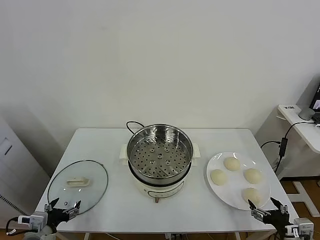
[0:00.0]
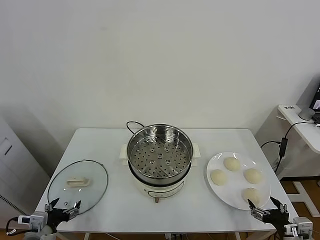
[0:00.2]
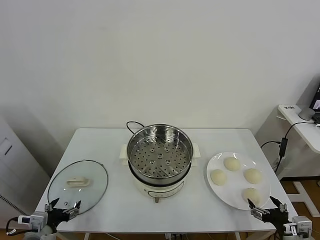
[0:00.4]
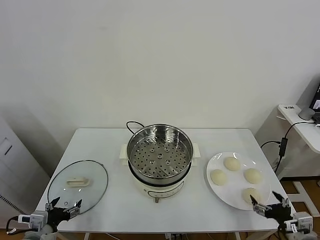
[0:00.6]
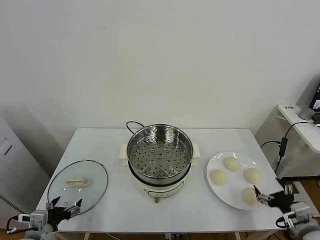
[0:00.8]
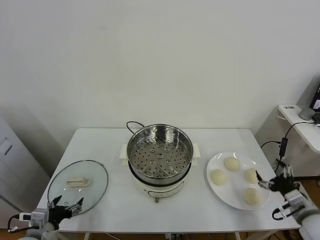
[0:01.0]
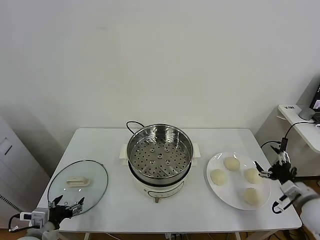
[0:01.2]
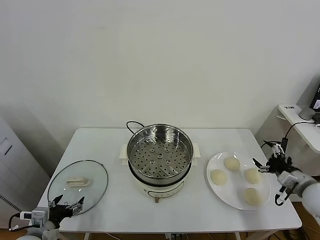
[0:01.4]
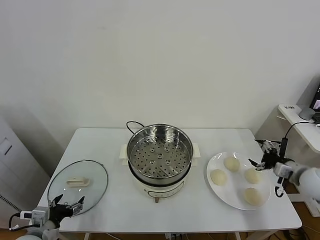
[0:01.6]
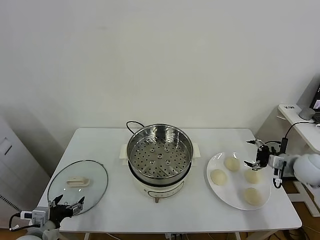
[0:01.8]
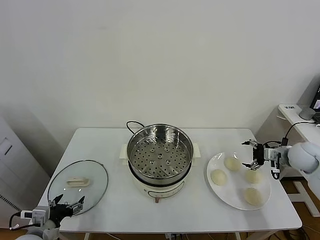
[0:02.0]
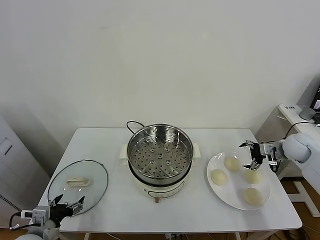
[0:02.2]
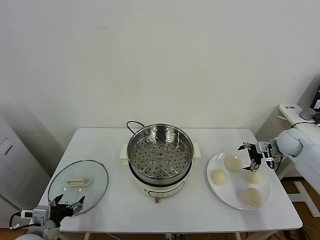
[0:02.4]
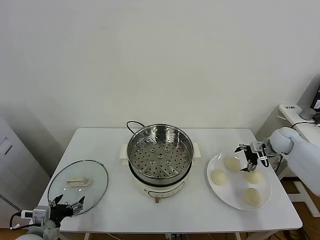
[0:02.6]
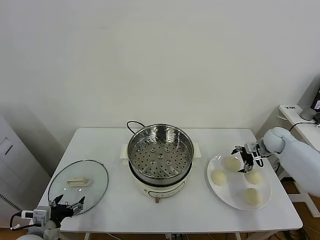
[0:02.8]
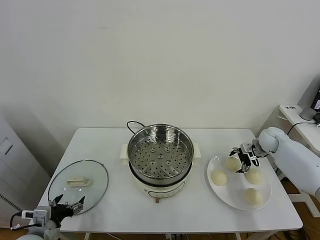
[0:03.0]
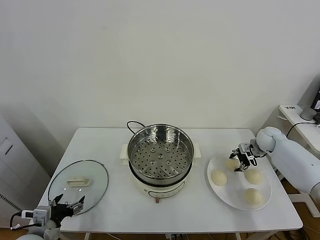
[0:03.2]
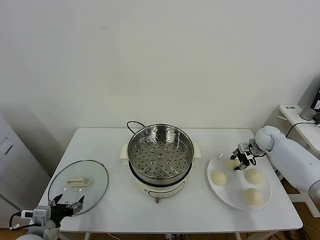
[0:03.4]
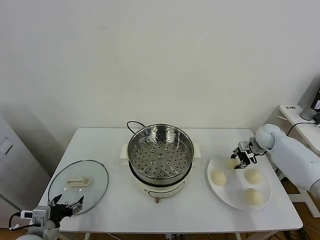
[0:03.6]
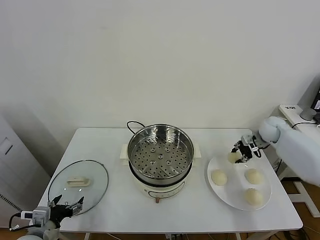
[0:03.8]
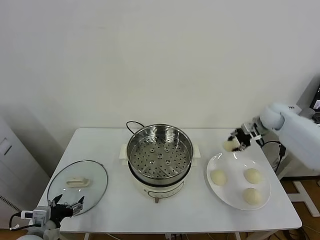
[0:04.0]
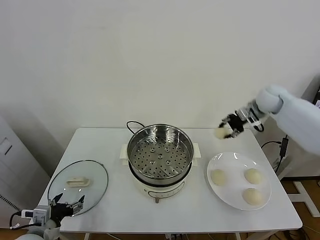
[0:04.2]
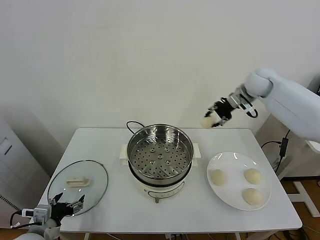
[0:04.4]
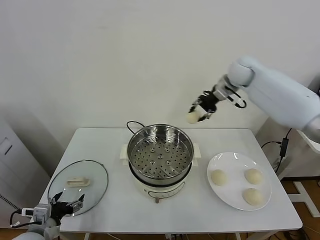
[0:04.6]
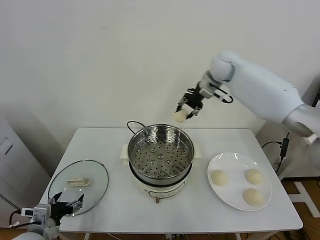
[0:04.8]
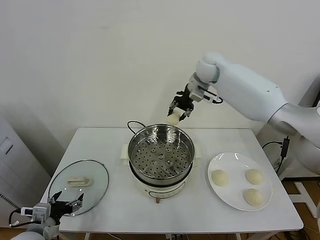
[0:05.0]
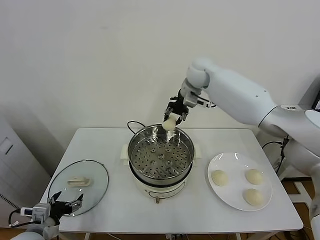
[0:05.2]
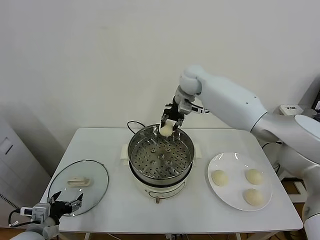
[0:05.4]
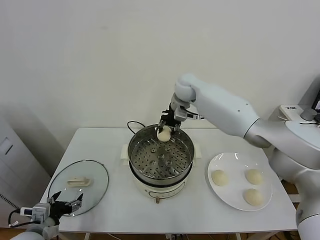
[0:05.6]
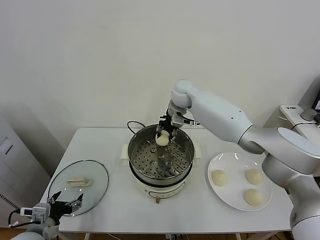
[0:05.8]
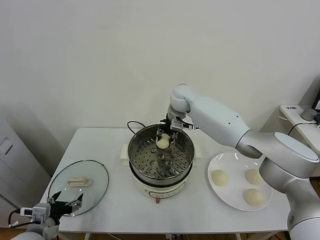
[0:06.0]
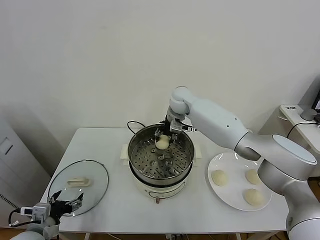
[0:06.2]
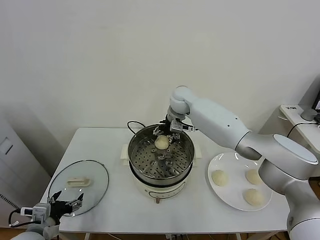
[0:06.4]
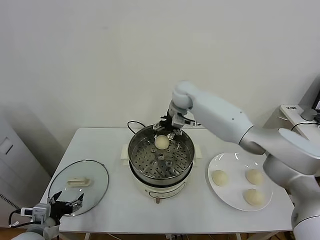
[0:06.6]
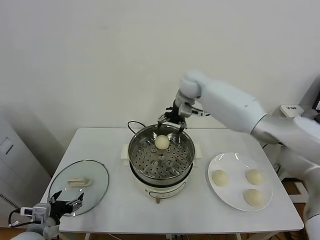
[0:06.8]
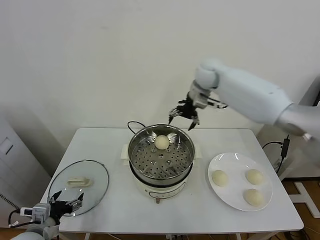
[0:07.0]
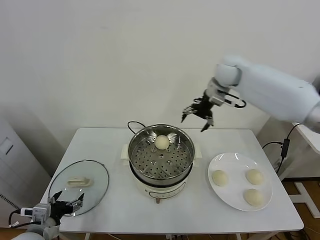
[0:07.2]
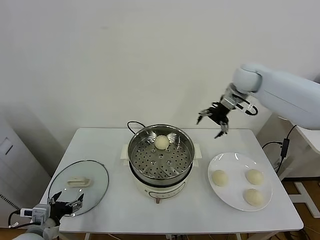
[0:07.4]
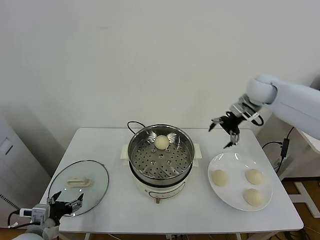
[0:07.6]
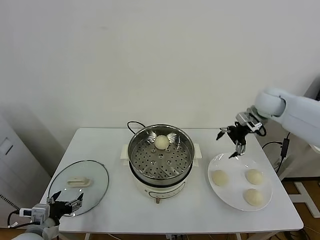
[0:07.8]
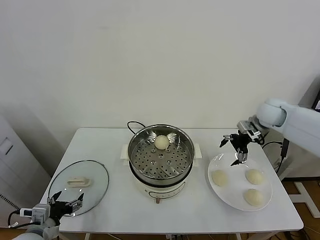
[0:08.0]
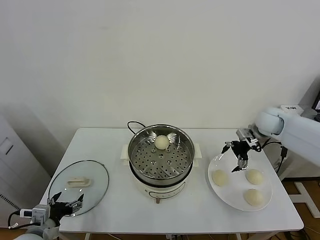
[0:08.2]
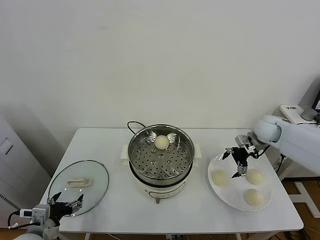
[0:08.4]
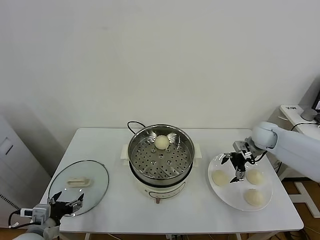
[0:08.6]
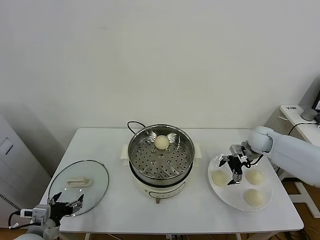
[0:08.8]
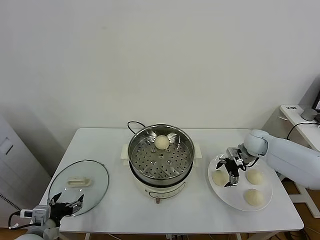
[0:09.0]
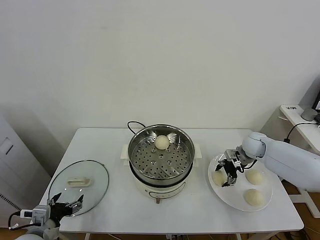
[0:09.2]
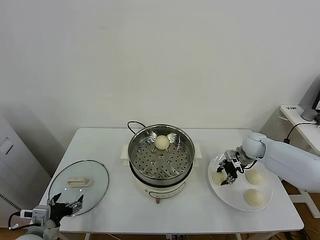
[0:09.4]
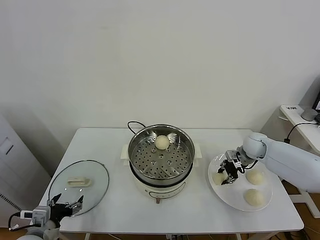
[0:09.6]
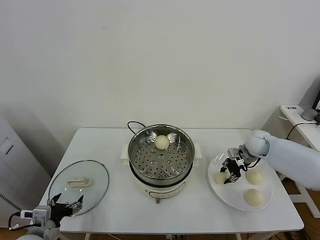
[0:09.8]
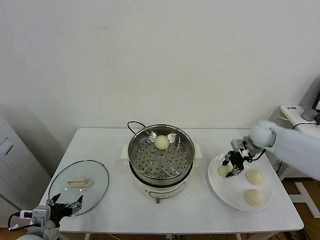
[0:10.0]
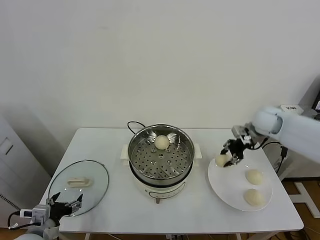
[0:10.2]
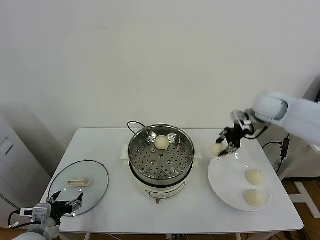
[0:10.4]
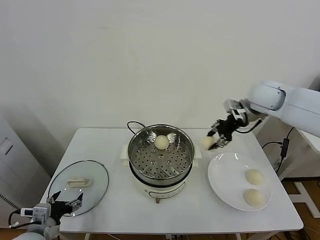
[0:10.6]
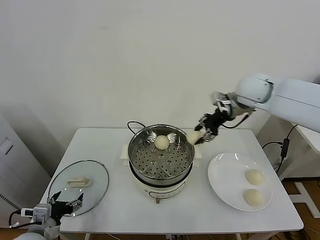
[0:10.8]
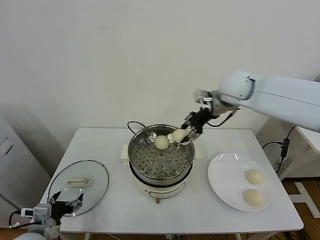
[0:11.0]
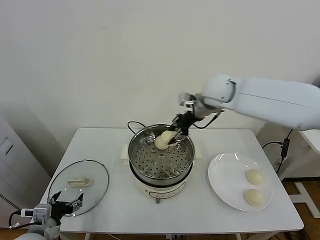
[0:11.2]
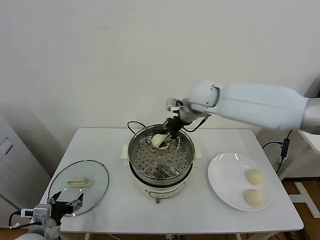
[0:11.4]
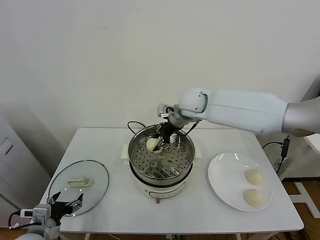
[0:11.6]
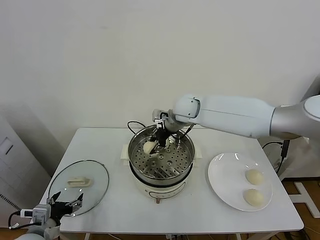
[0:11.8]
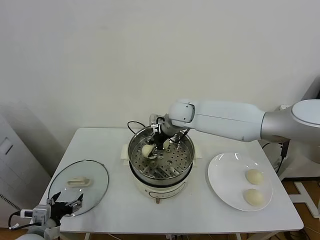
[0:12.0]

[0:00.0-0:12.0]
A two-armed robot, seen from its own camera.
Task of the whole recording: take steamed baozi put them in steamer.
Step, 0:00.0 to 0:03.2: Grasp the baozi in the plate with right gripper.
Step, 0:03.4 to 0:06.4: Place the baozi on the steamer with right gripper.
Step, 0:06.6 to 0:09.4: Grasp the baozi in the plate with right gripper.
0:01.6 to 0:03.0: The right gripper heads forward, covering about 20 cm.
0:03.0 to 0:04.4: The right gripper is displaced upward and to the left by about 25 cm, and closes.
0:04.4 to 0:06.0: The right gripper is displaced to the left by roughly 25 cm.
0:06.0 to 0:07.6: The right gripper shifts about 25 cm to the right, and opens its fingers.
0:07.6 to 0:09.0: The right gripper shifts approximately 20 cm downward.
0:09.0 to 0:10.4: The right gripper shifts some 20 cm upward, and closes.
0:10.4 to 0:12.0: The right gripper is displaced to the left by some 25 cm.

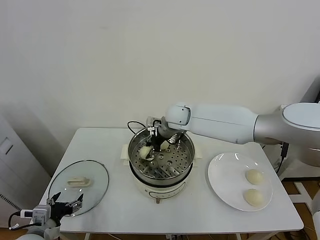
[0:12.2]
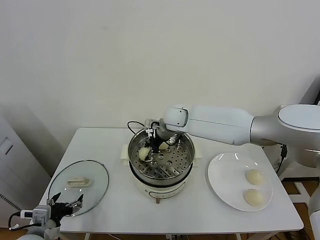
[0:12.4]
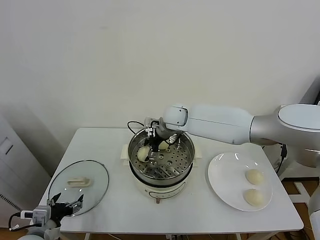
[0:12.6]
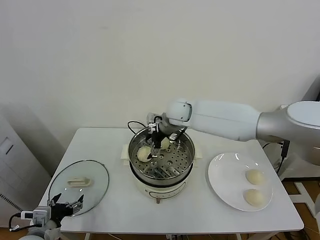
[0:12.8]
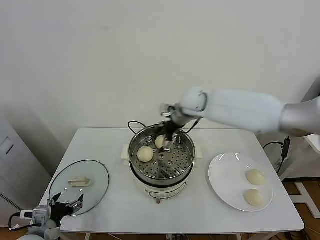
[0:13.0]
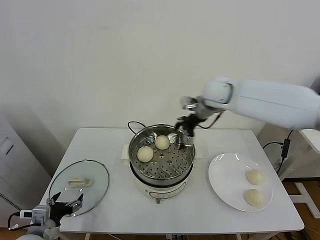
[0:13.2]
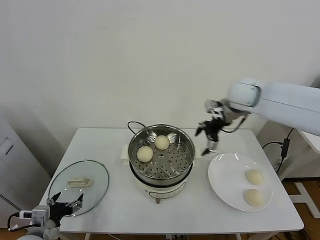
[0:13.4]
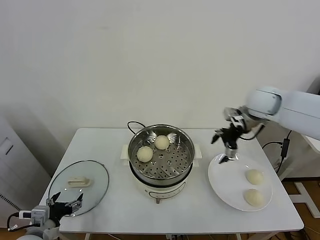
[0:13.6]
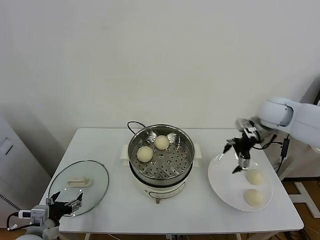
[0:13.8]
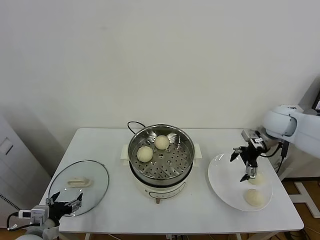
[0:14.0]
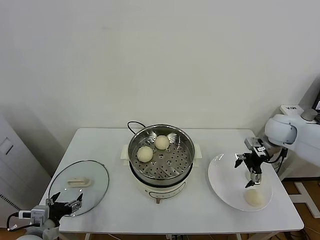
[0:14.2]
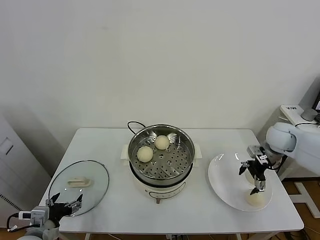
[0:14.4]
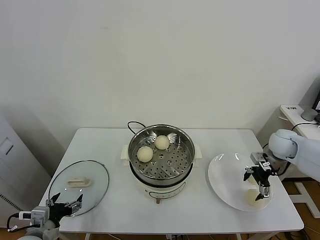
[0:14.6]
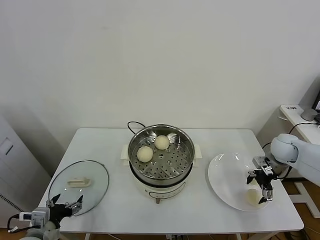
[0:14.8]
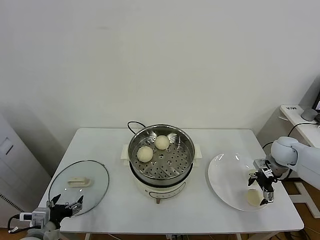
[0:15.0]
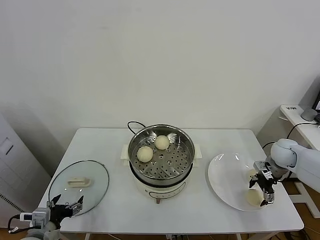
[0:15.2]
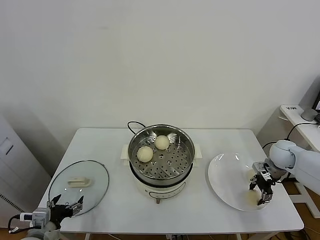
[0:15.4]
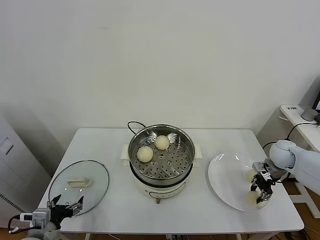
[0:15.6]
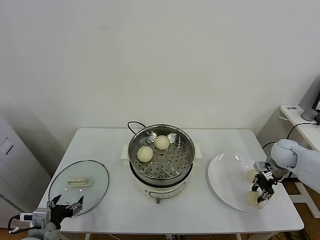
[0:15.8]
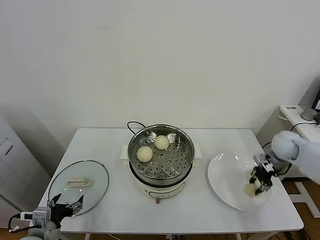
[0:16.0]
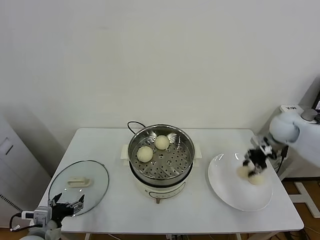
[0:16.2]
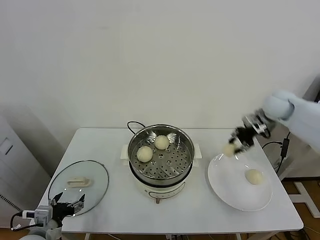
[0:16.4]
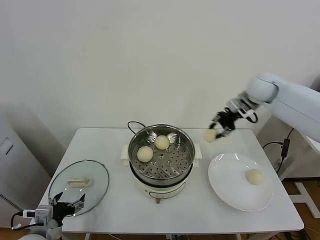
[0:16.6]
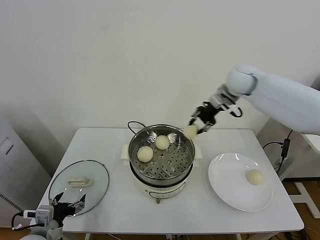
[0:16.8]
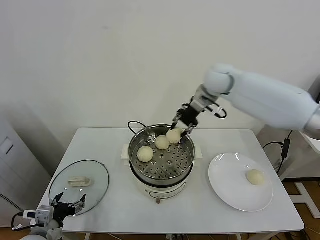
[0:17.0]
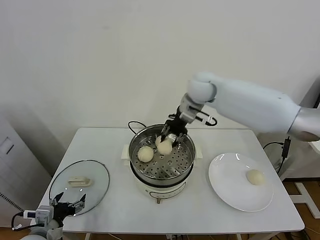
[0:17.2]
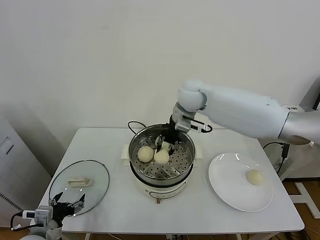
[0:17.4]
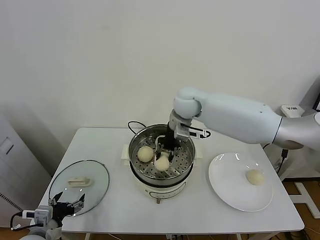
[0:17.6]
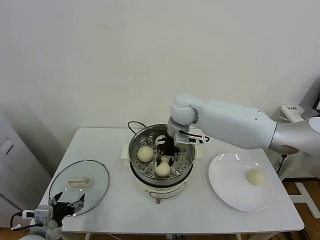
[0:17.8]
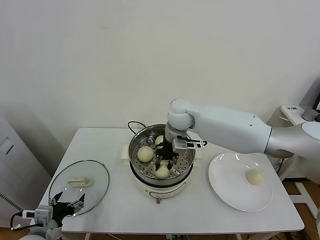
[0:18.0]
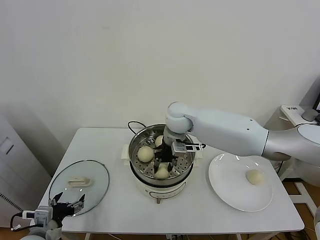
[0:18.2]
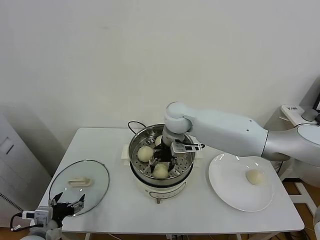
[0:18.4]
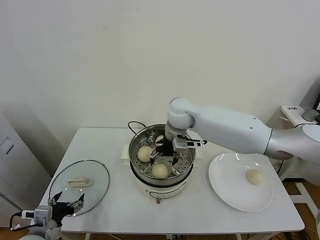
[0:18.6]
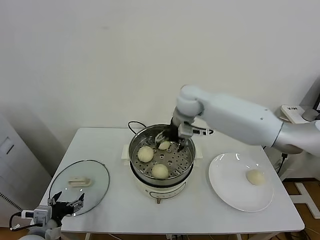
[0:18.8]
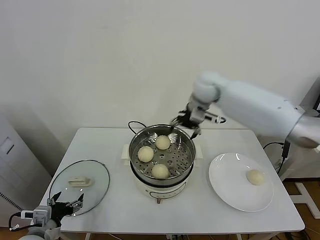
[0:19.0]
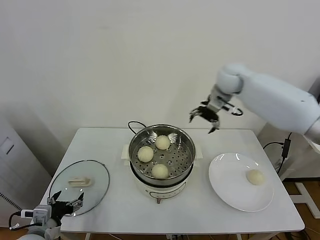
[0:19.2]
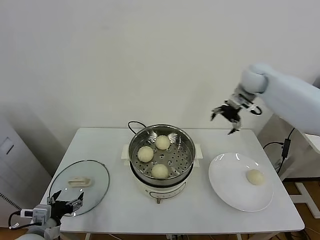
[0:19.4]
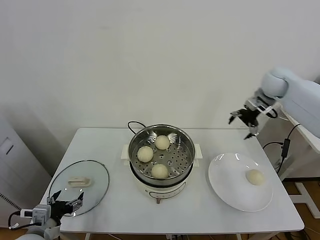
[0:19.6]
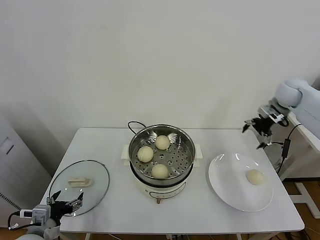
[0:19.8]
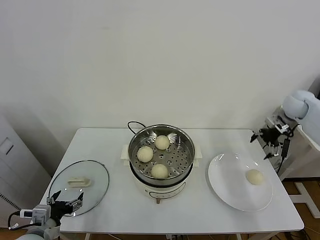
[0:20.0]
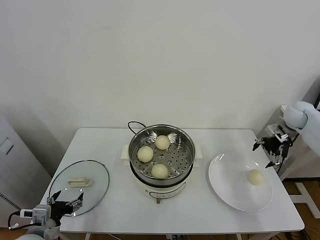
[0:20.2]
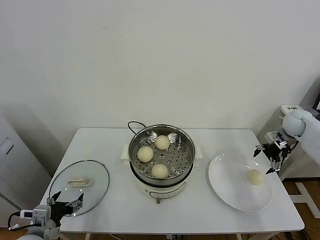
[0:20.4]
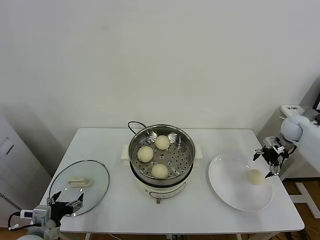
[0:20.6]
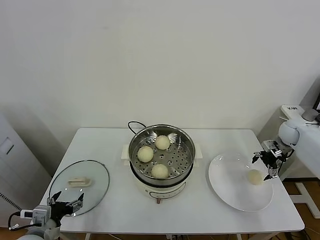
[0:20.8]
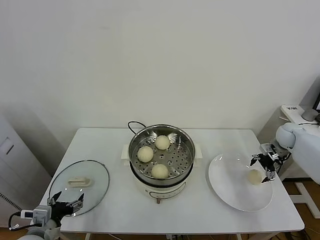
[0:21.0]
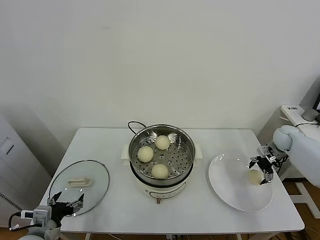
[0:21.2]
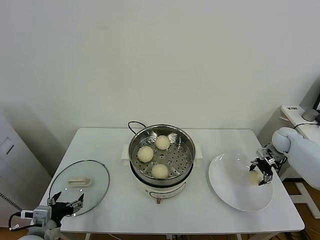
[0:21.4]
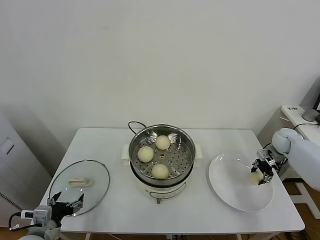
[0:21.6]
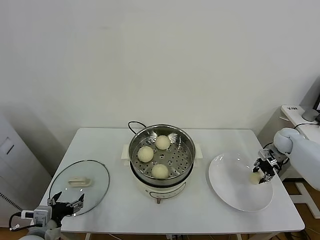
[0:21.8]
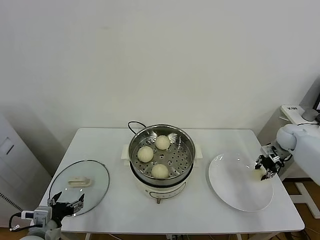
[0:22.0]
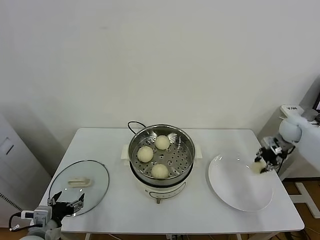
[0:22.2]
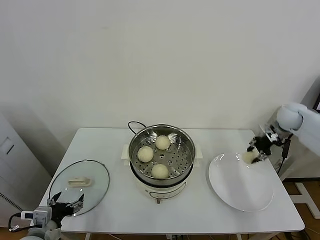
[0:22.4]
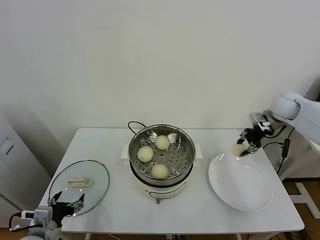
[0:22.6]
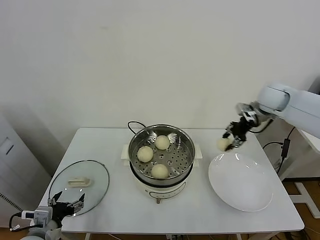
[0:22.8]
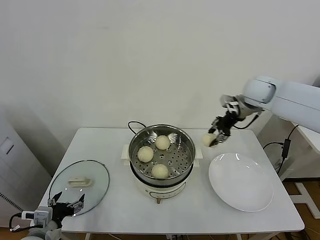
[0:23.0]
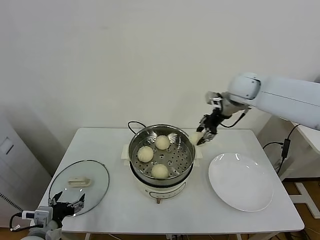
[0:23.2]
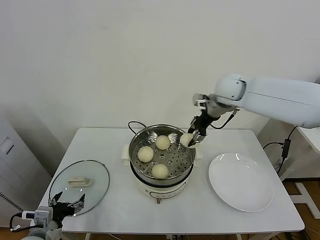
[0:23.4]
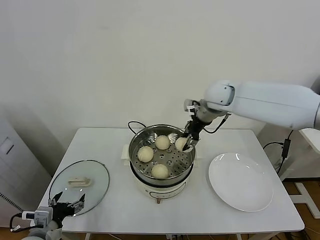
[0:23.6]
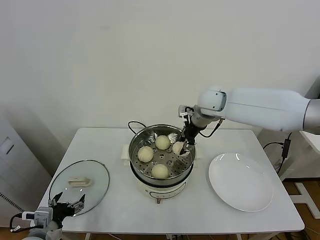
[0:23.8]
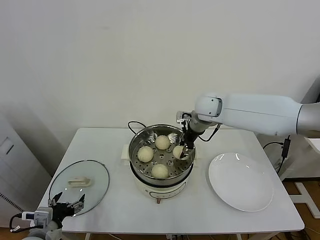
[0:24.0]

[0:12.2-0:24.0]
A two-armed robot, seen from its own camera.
Task of the whole recording: take steamed baozi put them in steamer.
Step, 0:13.0 to 0:15.6: Grasp the baozi in the plate with right gripper.
Step, 0:15.8 to 0:18.6: Place the baozi on the steamer with right gripper.
Step, 0:18.8 to 0:21.6: Grasp the baozi in the plate with right gripper.
0:12.2 to 0:13.6: The right gripper heads to the right, covering approximately 25 cm, and opens up.
0:13.6 to 0:15.2: The right gripper goes about 25 cm downward and to the right.
0:15.2 to 0:16.6: The right gripper is displaced upward, to the left and forward by roughly 25 cm, and closes up.
0:16.6 to 0:18.2: The right gripper travels to the left by approximately 25 cm.
0:18.2 to 0:19.6: The right gripper is displaced to the right by some 35 cm, and opens up.
0:19.6 to 0:21.0: The right gripper goes some 25 cm downward and to the right.
0:21.0 to 0:22.6: The right gripper travels upward and to the left by about 15 cm, and closes its fingers.
0:22.6 to 0:24.0: The right gripper moves to the left, approximately 25 cm.
